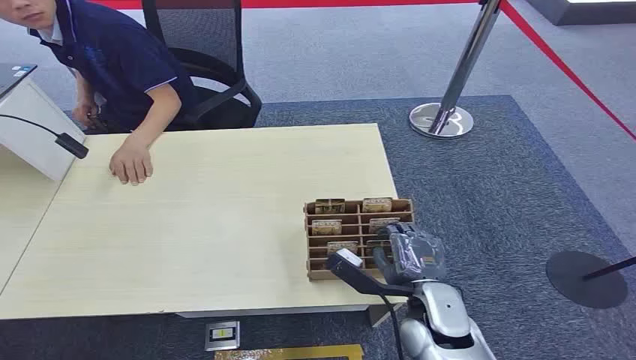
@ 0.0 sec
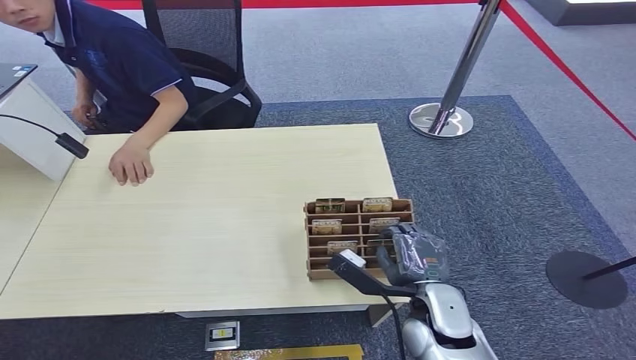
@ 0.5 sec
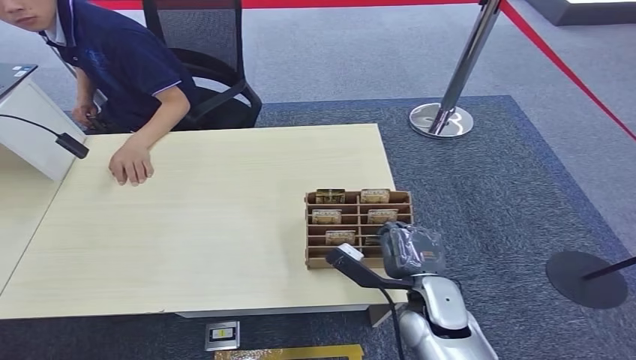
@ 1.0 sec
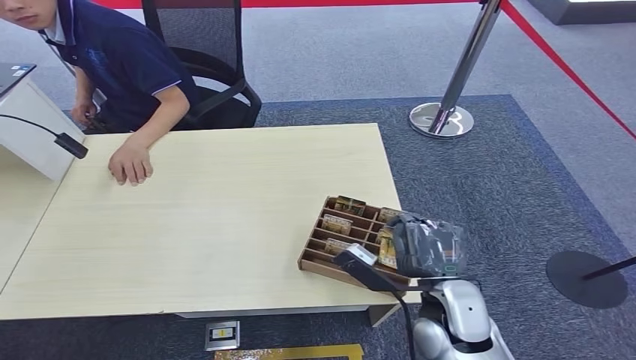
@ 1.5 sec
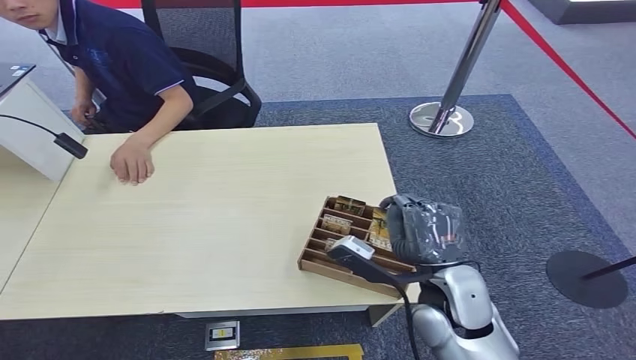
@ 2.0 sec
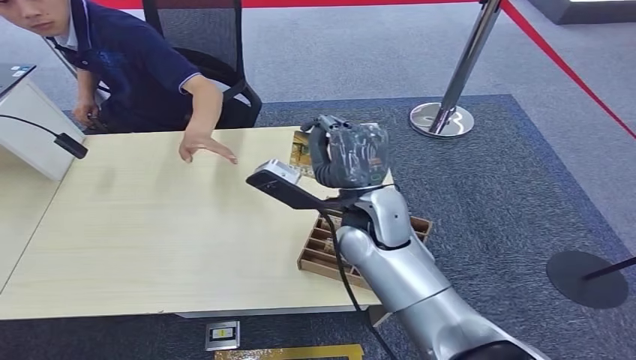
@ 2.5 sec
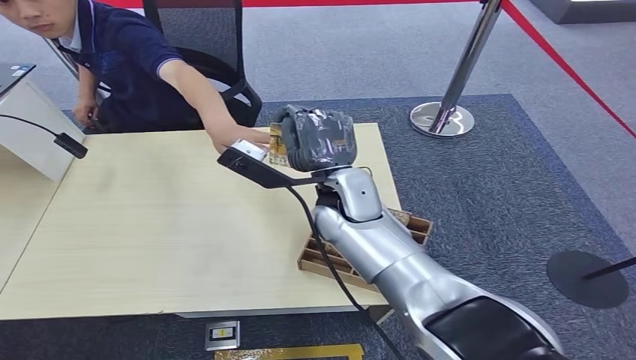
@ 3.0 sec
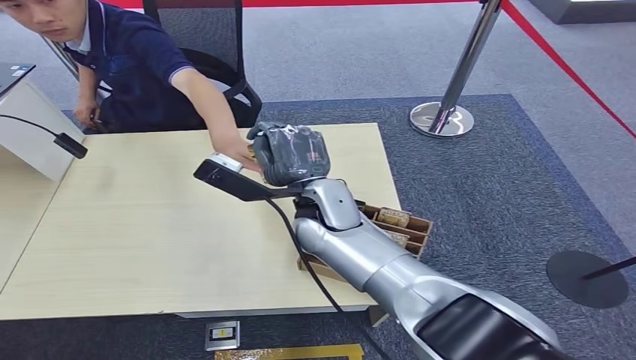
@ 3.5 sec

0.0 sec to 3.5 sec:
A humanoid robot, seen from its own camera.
Step, 0.0 sec to 2.0 sec: Pick up the key card from the card box.
Step, 2.5 sec to 3.5 sec: Hand the key card to the target.
2.0 sec to 3.5 sec: The right hand goes roughly 20 cm to the left, forward and upward.
